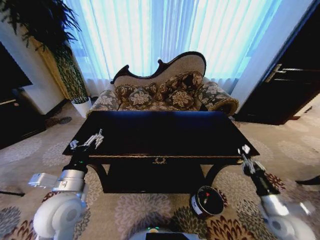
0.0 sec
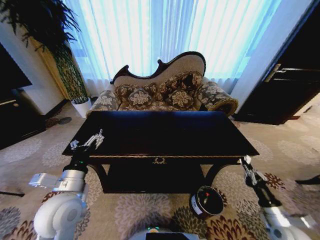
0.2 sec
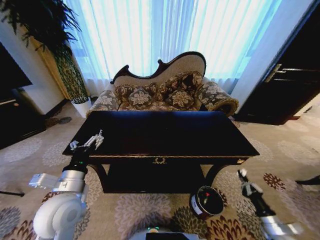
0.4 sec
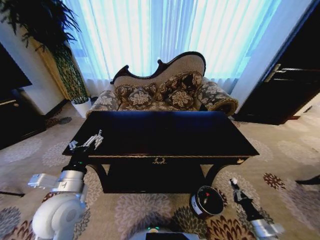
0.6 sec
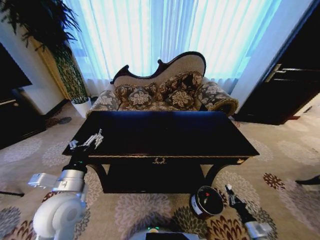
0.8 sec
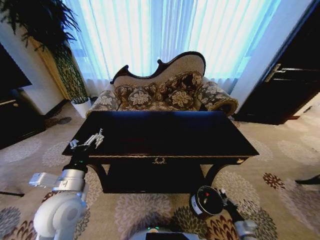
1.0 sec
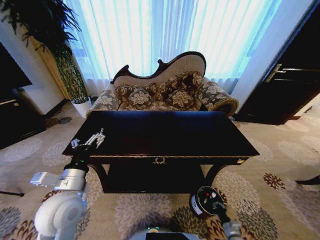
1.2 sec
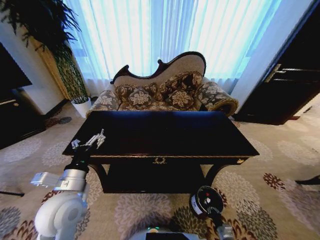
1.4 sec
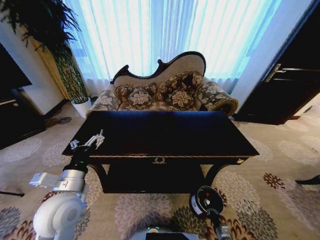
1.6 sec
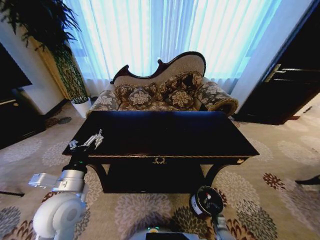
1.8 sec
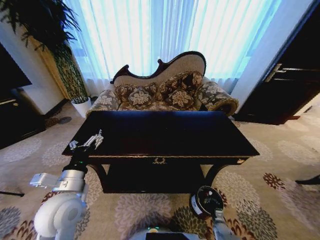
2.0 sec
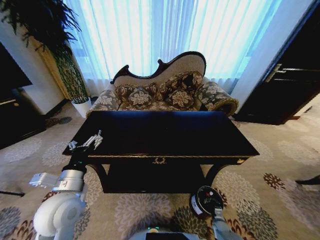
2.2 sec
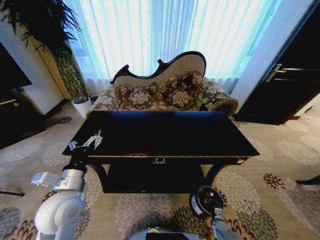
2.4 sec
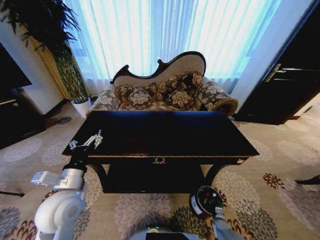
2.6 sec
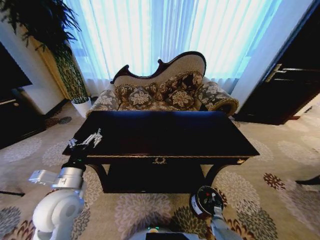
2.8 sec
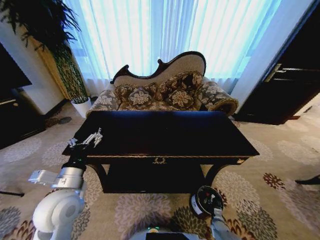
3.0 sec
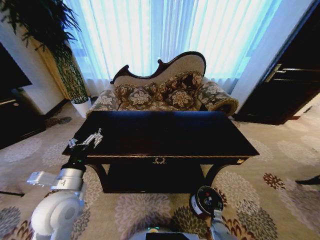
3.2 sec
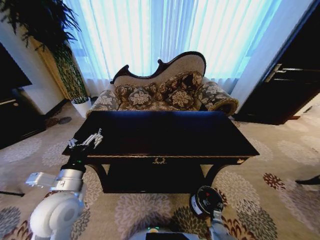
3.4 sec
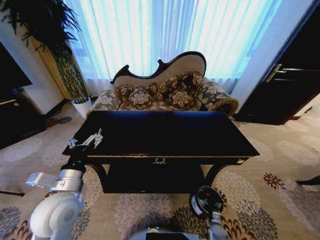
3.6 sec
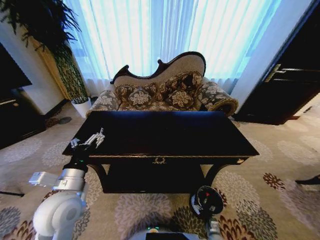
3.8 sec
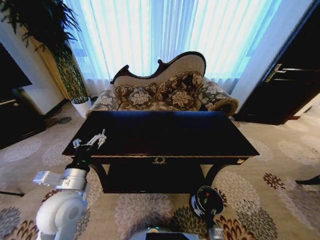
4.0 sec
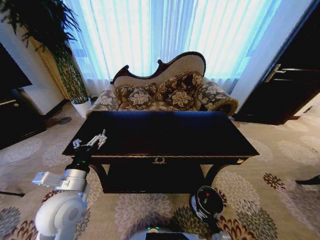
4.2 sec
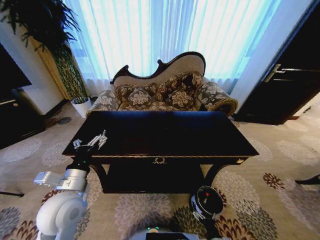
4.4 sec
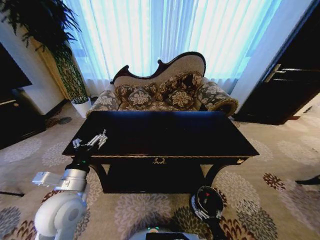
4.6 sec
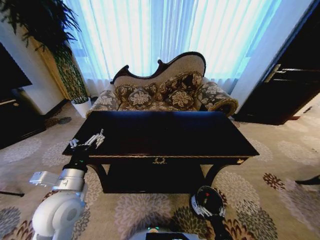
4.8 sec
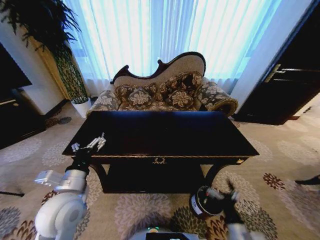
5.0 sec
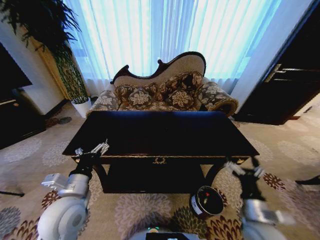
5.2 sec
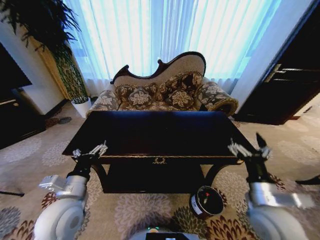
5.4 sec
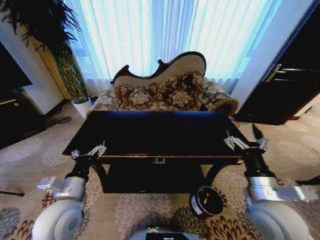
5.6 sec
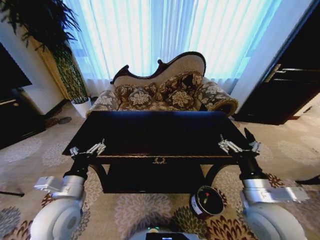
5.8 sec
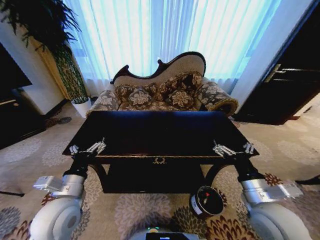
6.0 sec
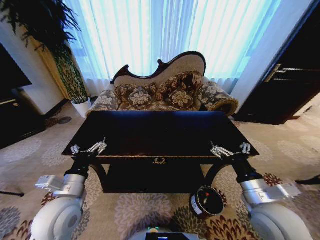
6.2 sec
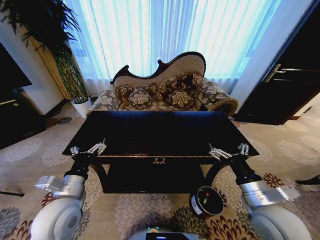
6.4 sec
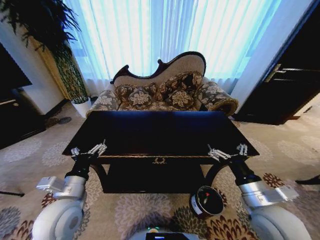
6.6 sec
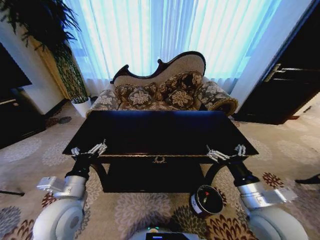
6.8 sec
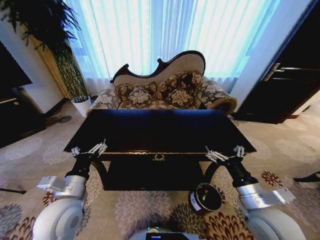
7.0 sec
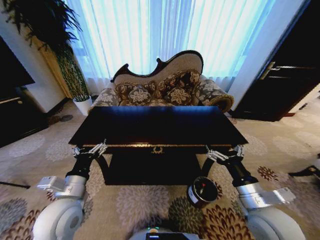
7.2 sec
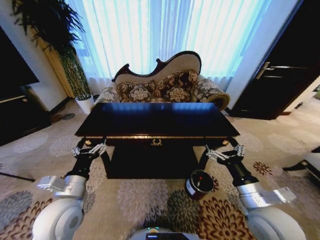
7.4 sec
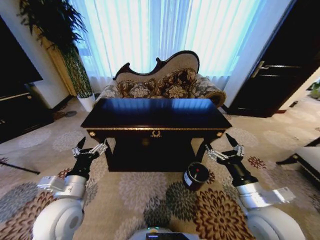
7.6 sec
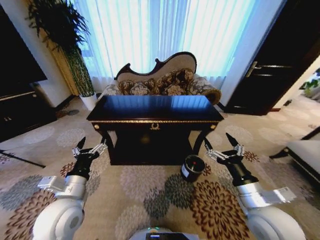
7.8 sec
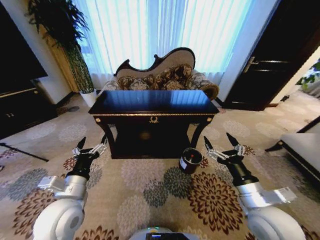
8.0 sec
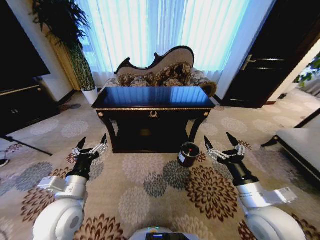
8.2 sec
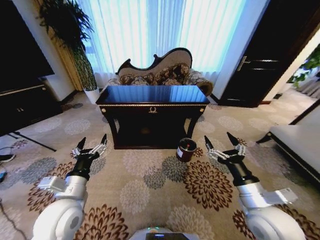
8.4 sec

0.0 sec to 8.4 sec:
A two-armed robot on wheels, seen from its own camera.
Task of the whole recording: Move to the front of the table and place the trash on the table into the trash bin.
0.0 sec to 1.4 sec: The right gripper heads downward, covering some 35 cm.
1.4 sec to 2.8 sec: The right gripper goes approximately 10 cm forward.
2.8 sec to 4.2 sec: The right gripper shifts about 15 cm backward, upward and to the left, and opens up.
4.2 sec to 5.6 sec: The right gripper heads upward, covering some 40 cm.
5.6 sec to 7.0 sec: The grippers move only a little.

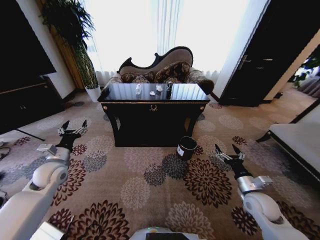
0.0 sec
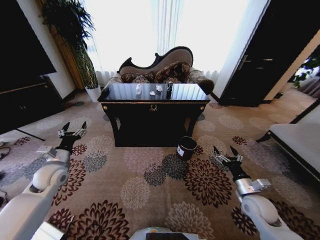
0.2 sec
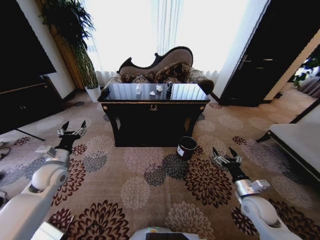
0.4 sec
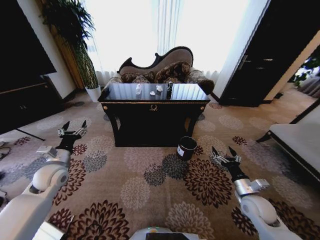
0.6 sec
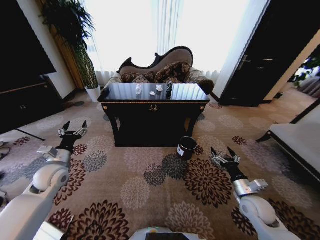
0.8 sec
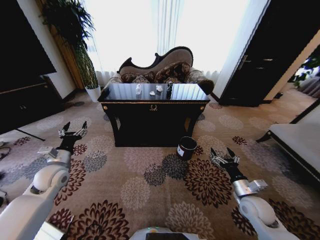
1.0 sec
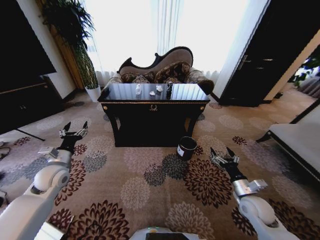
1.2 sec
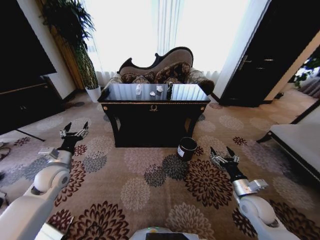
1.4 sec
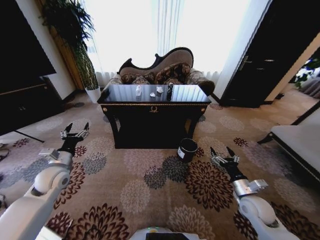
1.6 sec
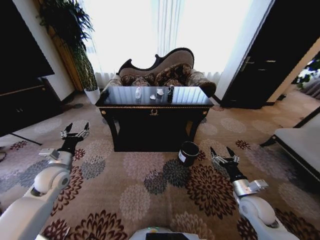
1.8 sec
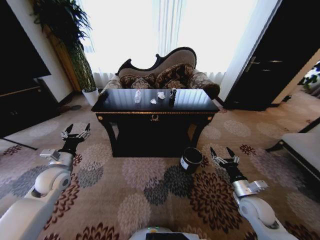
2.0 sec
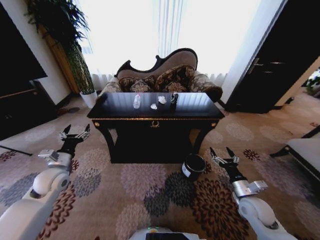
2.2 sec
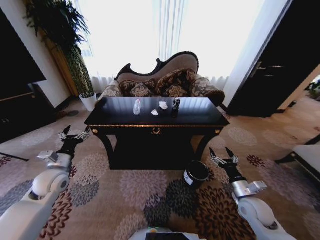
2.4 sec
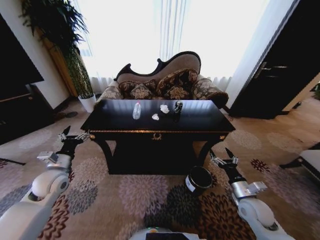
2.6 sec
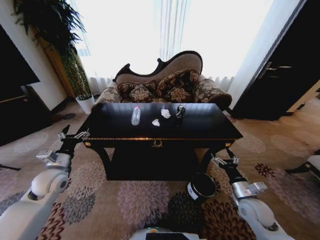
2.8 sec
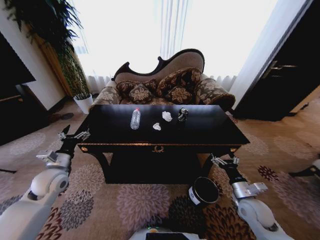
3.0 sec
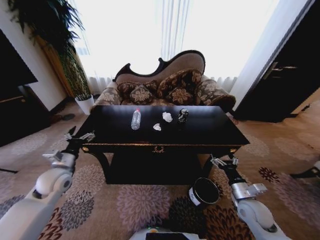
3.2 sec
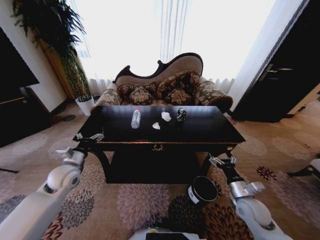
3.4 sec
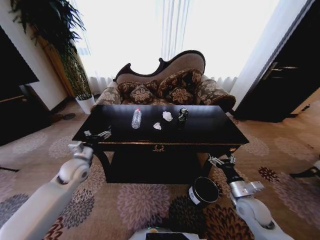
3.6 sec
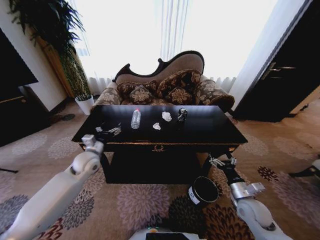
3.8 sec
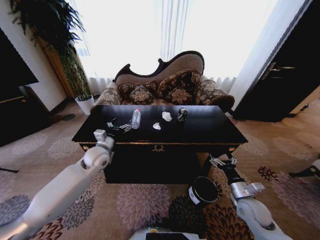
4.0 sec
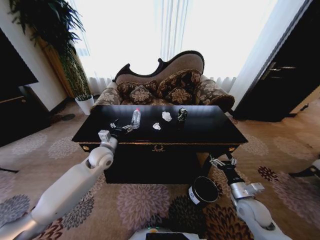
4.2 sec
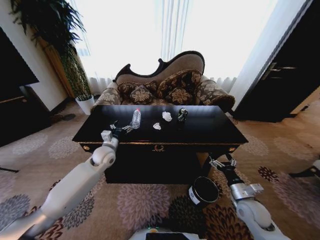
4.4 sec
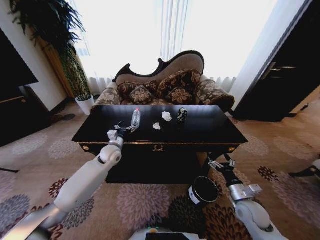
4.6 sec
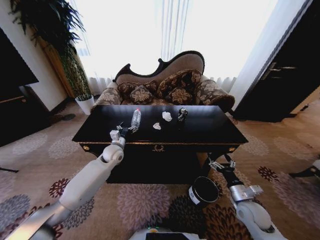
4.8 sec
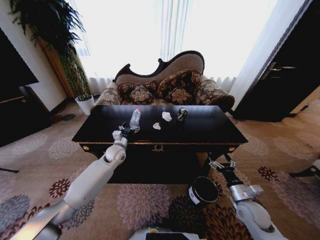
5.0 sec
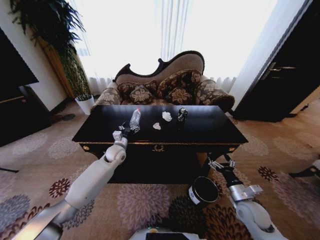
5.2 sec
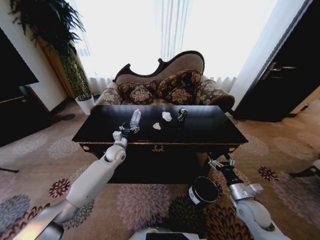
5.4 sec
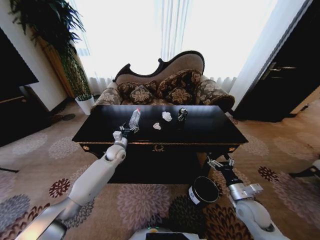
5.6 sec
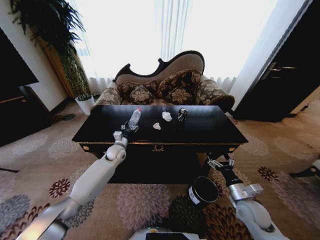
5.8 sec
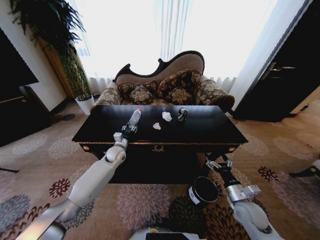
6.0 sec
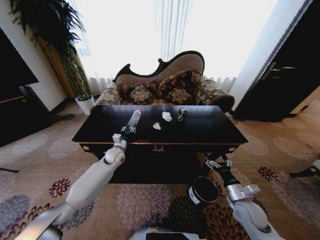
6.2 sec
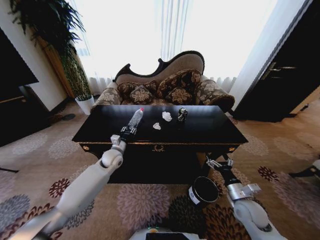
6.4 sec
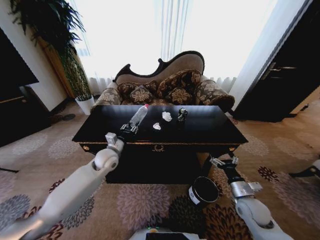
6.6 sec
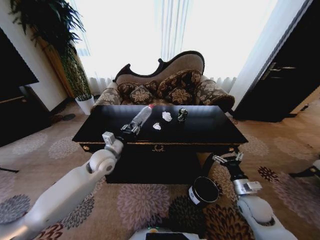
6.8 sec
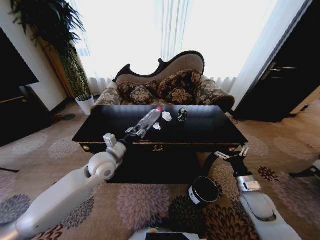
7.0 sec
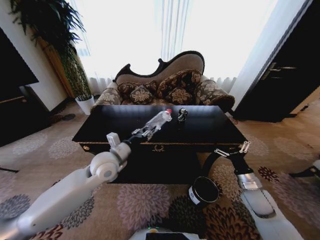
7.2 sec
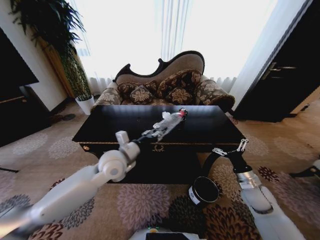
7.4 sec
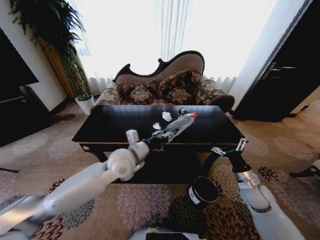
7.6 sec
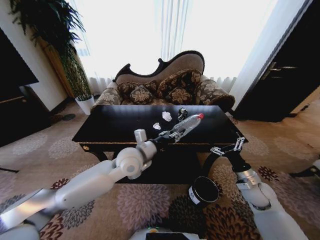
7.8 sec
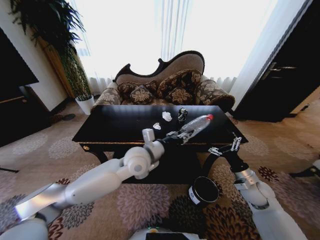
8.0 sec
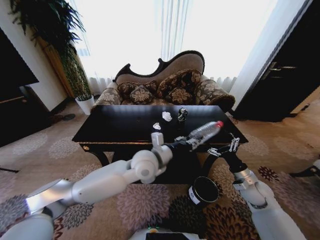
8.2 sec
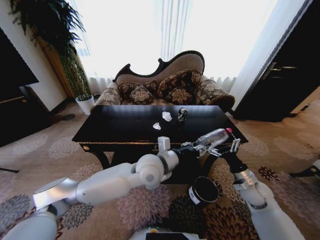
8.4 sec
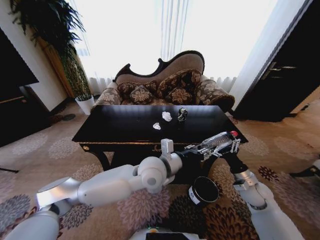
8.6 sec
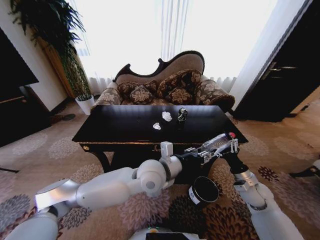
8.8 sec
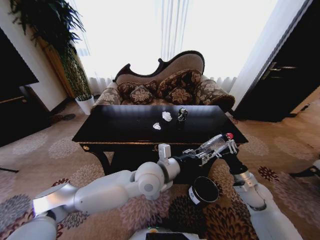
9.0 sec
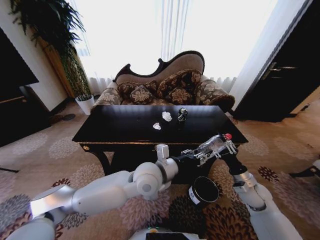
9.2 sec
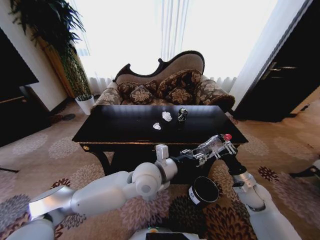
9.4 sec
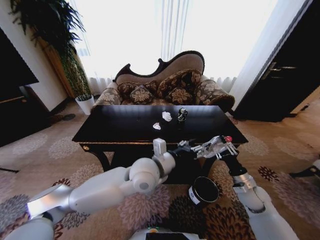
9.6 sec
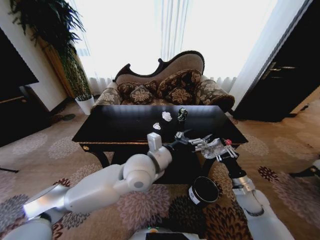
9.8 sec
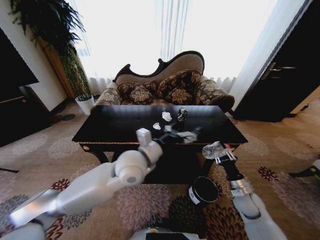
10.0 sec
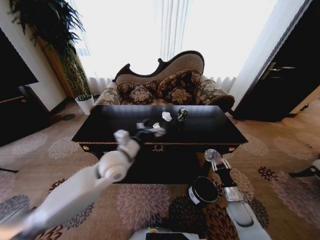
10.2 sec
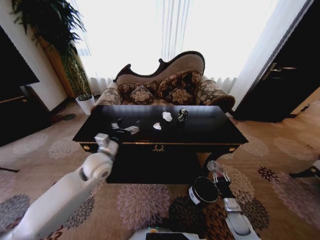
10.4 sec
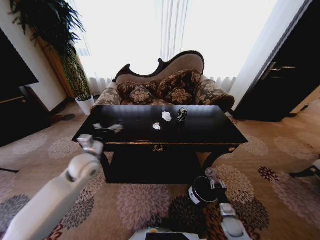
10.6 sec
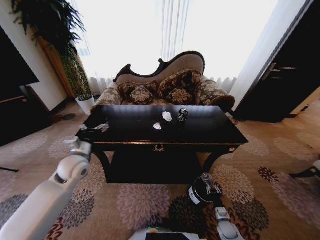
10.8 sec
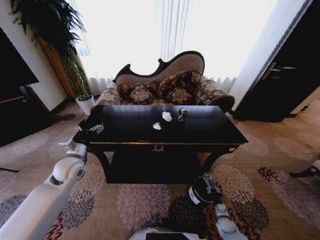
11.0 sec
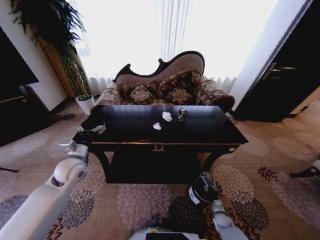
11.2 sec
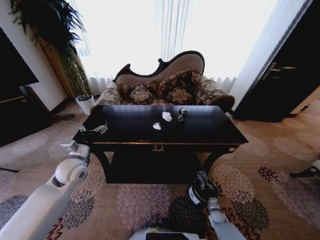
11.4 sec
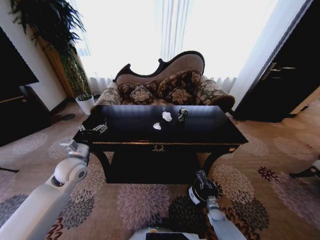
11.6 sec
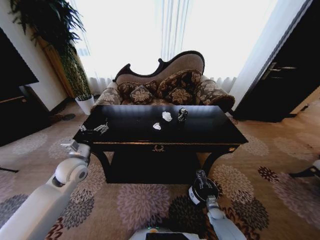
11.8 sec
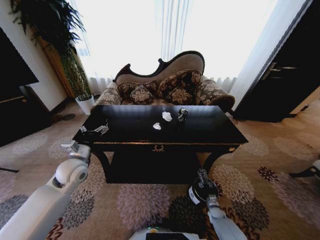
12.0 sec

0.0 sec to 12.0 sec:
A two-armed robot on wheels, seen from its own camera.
Task of the whole recording: Move to the front of the table and place the trash on the table into the trash bin.
3.0 sec to 4.4 sec: The left gripper goes roughly 20 cm to the right and forward.
4.4 sec to 6.0 sec: The left gripper heads downward, covering roughly 5 cm, and closes up.
6.0 sec to 7.6 sec: The right gripper moves forward, some 5 cm, while the left gripper travels upward, backward and to the right by some 20 cm.
7.6 sec to 9.0 sec: The left gripper moves to the right, some 10 cm, while the right gripper closes.
9.0 sec to 10.4 sec: The right gripper shifts some 20 cm downward and backward; the left gripper goes roughly 20 cm to the left, and opens its fingers.
10.4 sec to 12.0 sec: The left gripper travels to the left by approximately 10 cm; the right gripper goes some 15 cm downward.

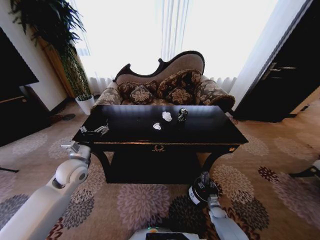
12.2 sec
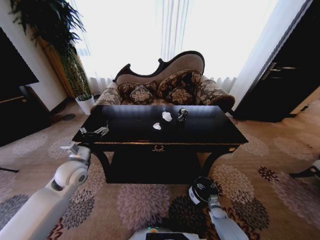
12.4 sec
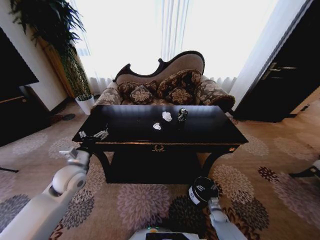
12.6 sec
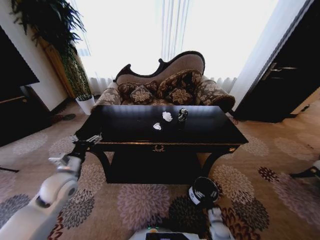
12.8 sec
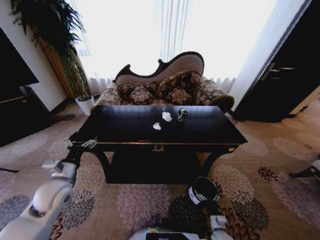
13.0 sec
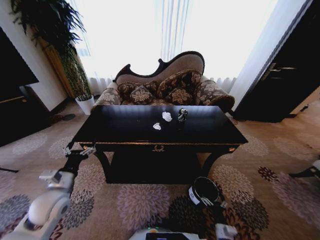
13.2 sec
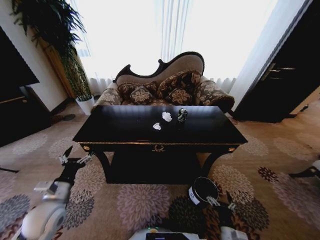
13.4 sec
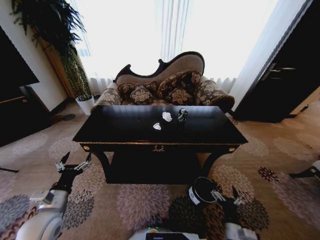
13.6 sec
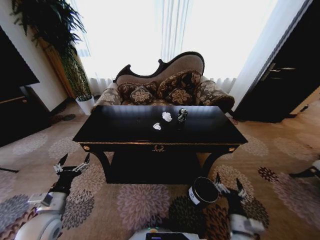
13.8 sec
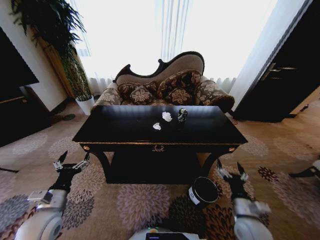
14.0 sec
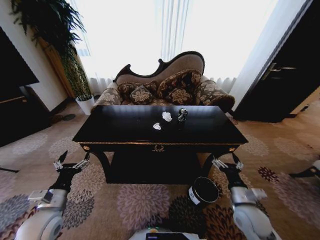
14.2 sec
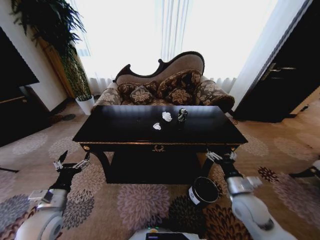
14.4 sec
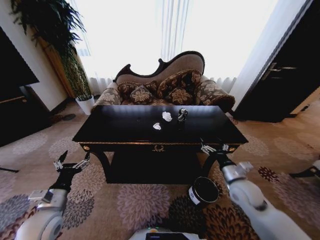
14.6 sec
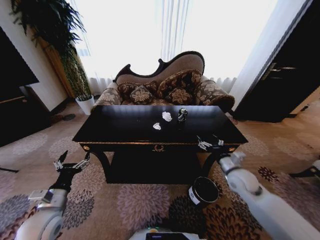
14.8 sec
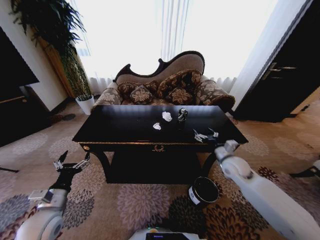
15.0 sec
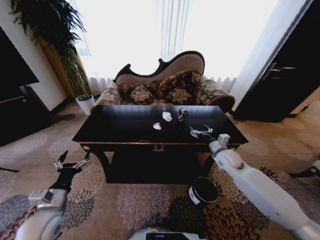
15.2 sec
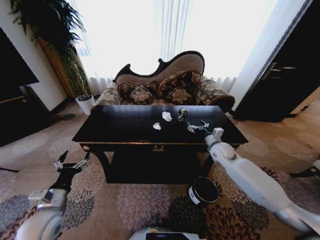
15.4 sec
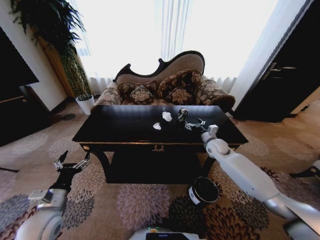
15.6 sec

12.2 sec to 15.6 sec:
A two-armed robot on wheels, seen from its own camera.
Task of the whole recording: Move to the front of the table and place the trash on the table into the trash bin.
12.2 sec to 13.8 sec: The left gripper goes about 15 cm backward and downward; the right gripper shifts about 30 cm upward and backward.
13.8 sec to 15.6 sec: The right gripper moves forward and upward, about 40 cm.
